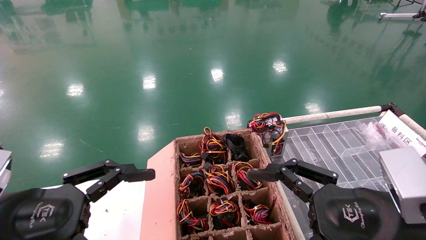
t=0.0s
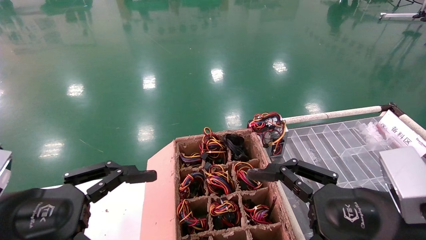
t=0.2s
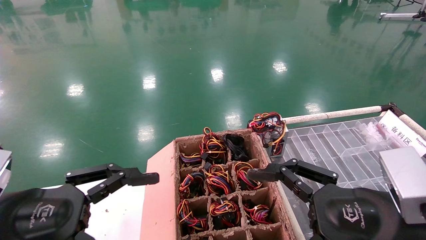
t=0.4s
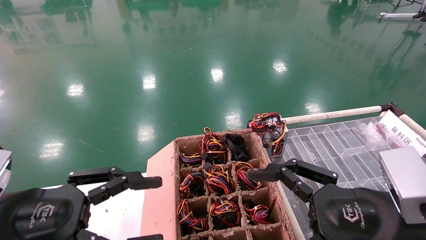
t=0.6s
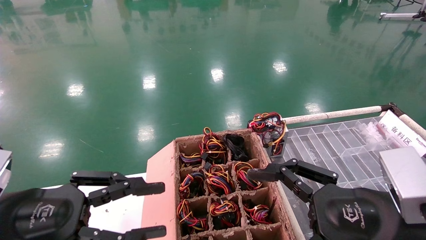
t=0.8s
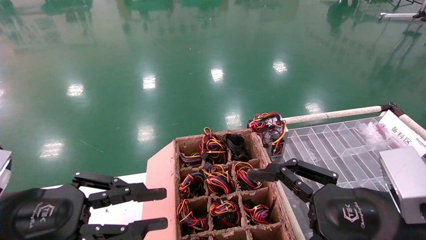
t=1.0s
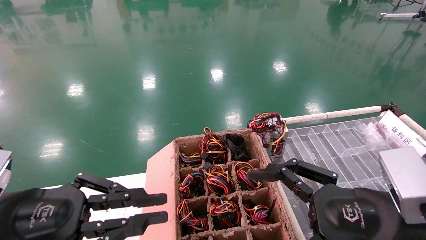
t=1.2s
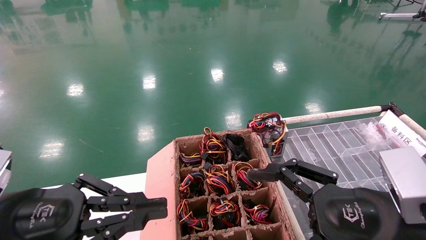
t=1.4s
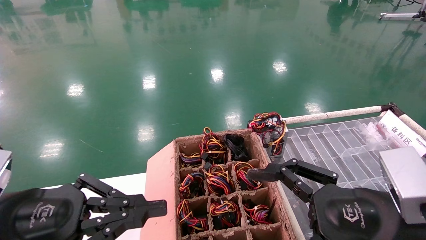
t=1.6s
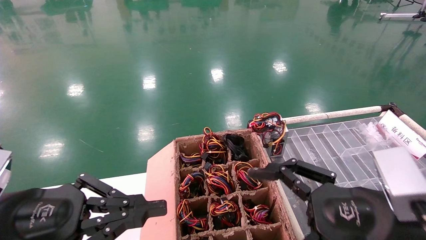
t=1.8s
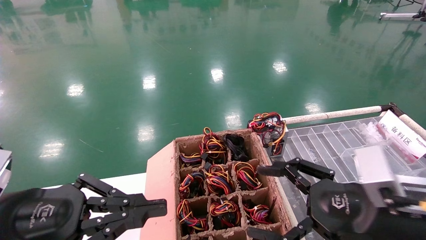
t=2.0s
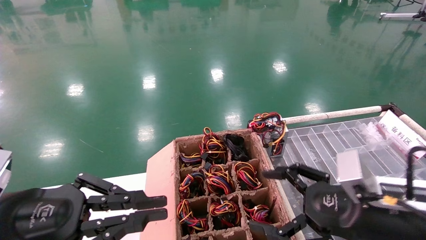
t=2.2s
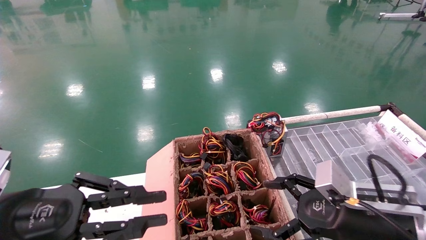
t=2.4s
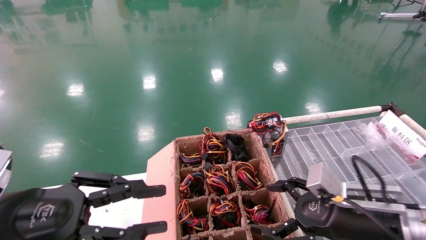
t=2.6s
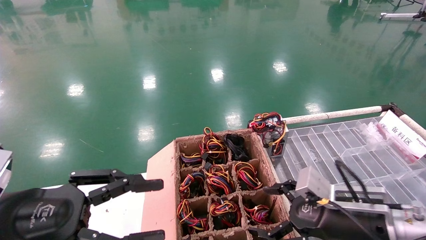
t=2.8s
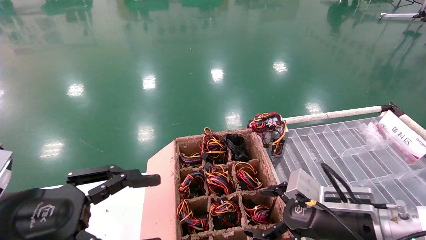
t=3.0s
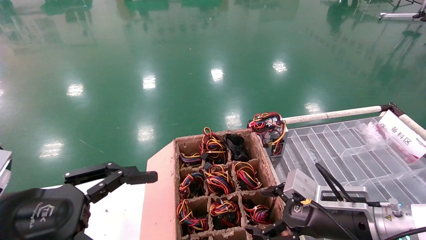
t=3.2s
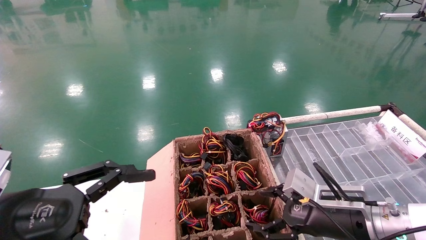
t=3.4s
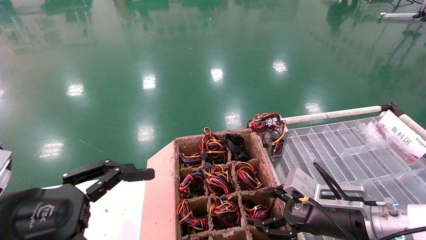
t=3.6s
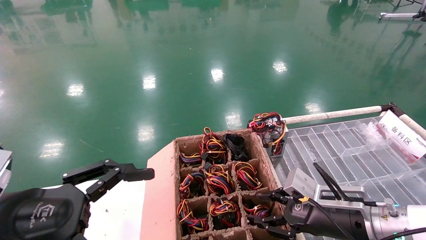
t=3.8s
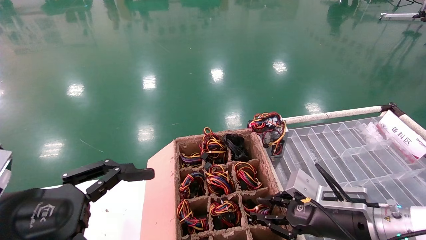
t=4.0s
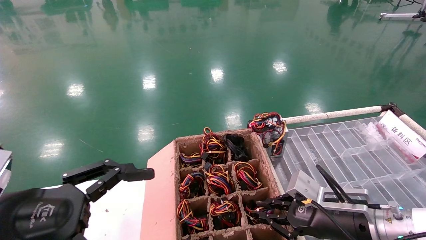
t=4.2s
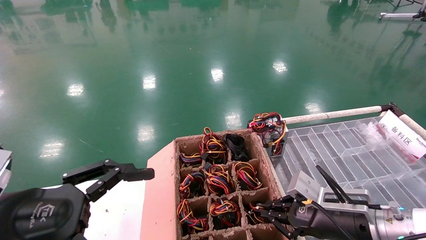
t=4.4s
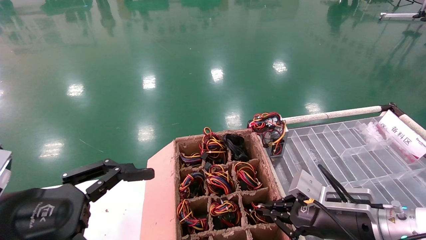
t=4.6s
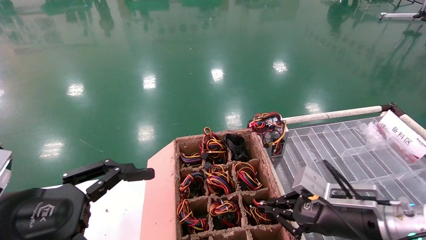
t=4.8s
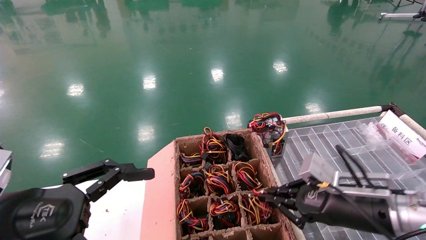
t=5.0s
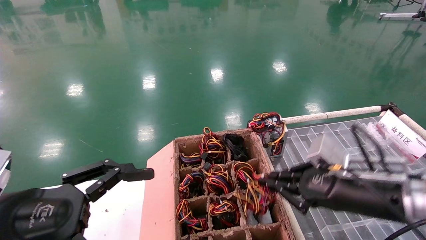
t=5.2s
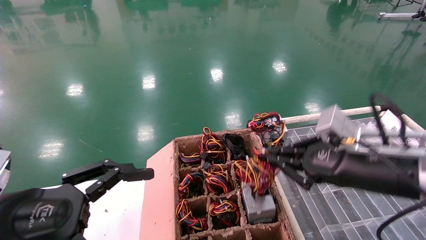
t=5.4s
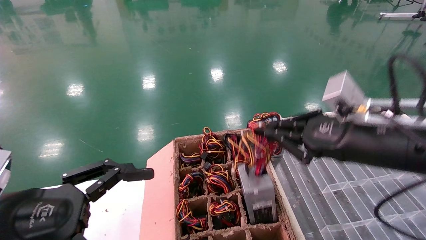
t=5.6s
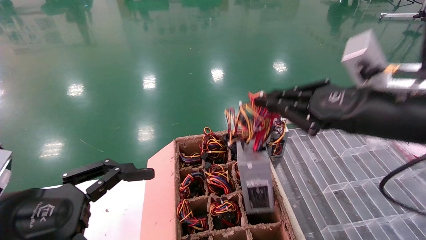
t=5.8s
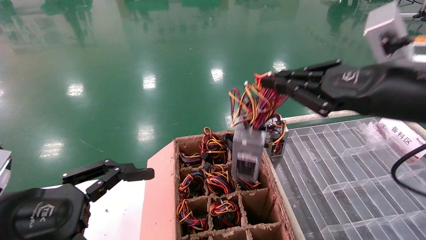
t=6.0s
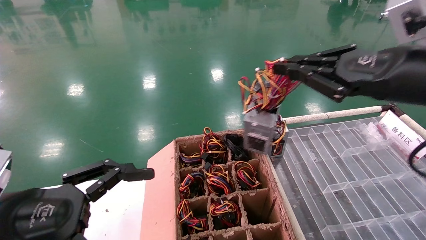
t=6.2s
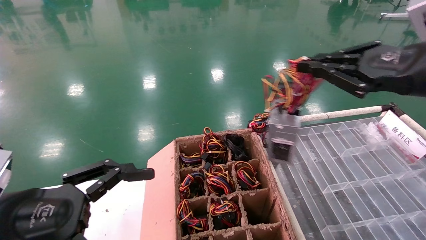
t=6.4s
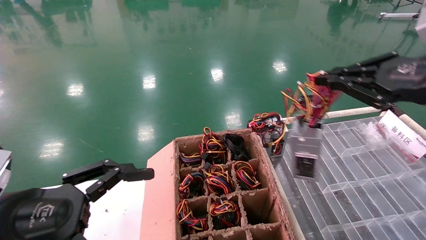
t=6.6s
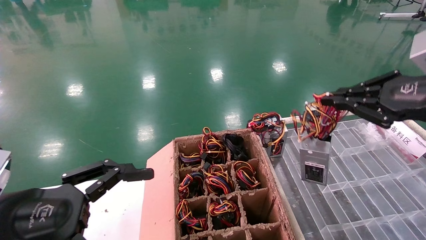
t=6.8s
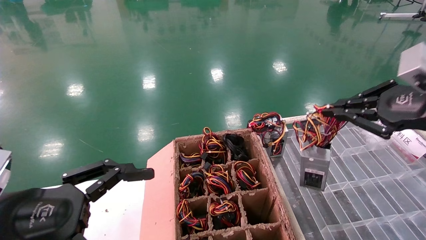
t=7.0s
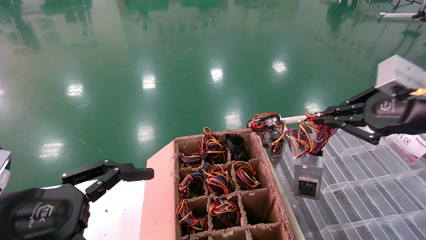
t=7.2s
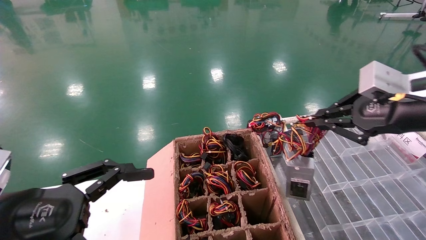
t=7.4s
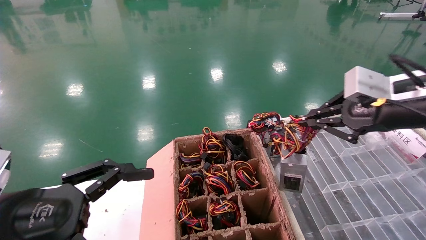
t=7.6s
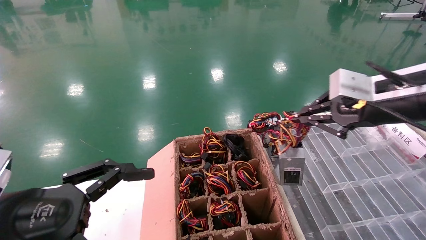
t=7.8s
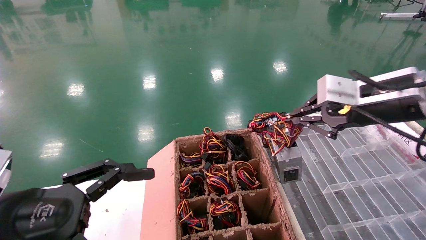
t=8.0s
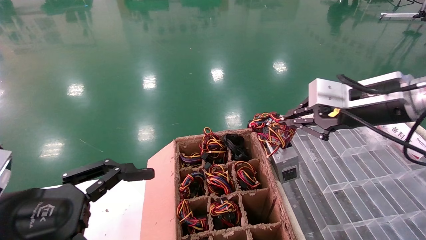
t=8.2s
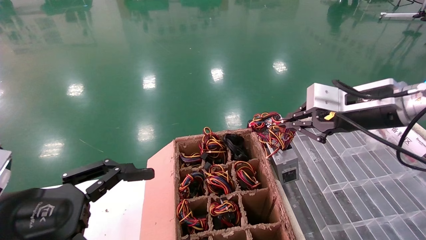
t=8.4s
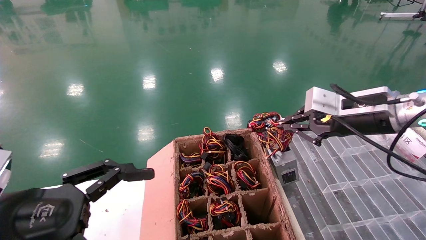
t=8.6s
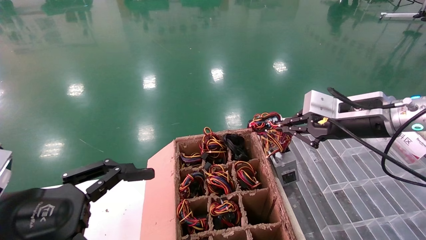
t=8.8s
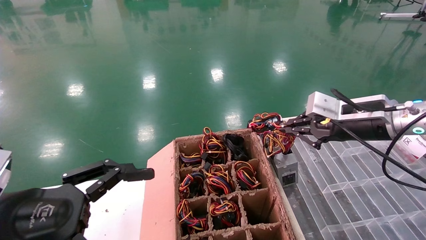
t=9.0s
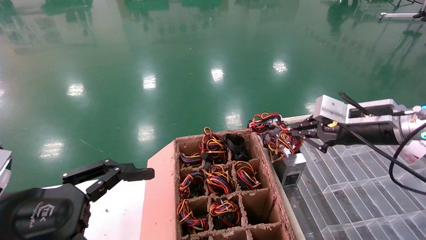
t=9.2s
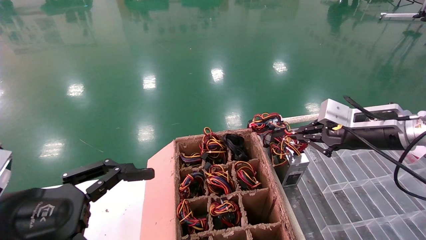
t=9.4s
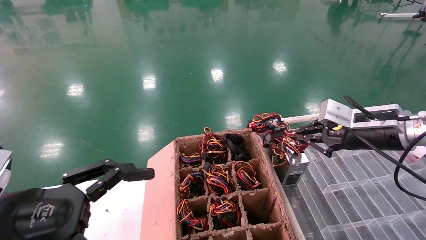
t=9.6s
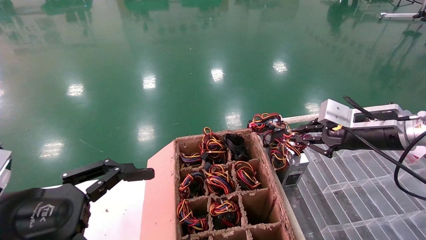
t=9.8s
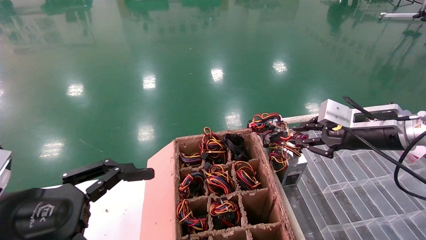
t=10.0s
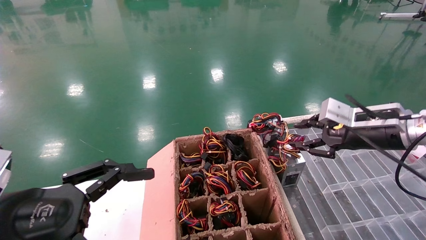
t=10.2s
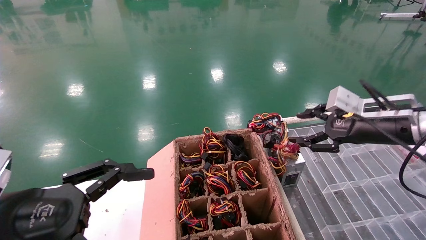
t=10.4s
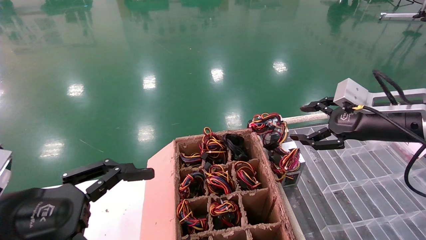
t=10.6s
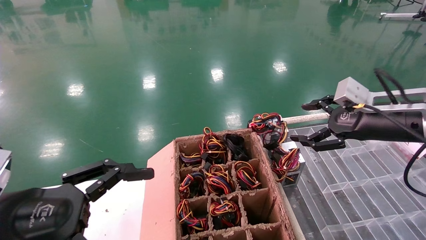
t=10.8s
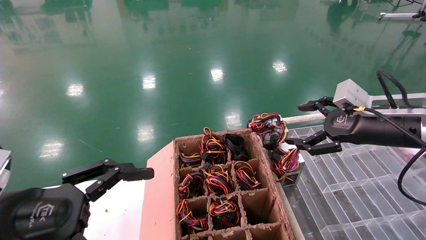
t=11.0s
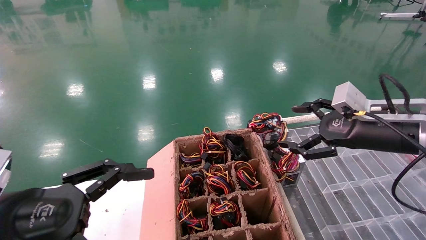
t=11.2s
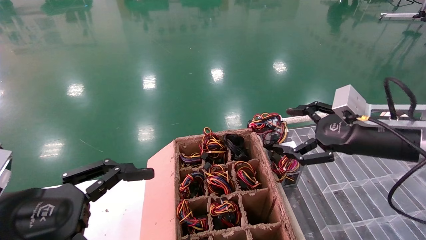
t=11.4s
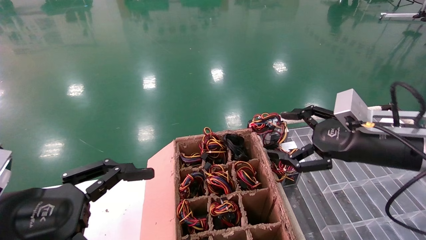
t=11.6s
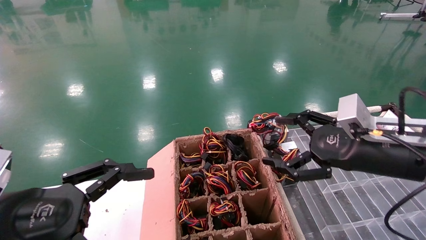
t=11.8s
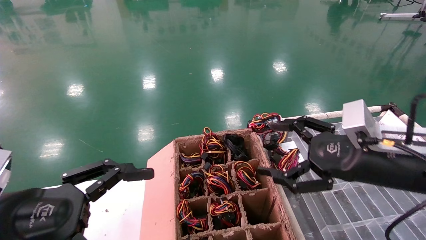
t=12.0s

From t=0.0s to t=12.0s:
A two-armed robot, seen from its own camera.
Step, from t=1.6s to t=4.8s: Grab and lift the power supply from the large box.
Step, from t=5.0s to t=9.8s: Place the power supply on the operating table.
From t=0.0s to t=1.6s: The left gripper closes its fingers.
From t=1.6s to t=3.0s: The left gripper opens its fingers, while the right gripper moves forward and downward, roughly 10 cm.
From t=3.0s to t=4.4s: The right gripper closes; the left gripper opens.
From t=4.4s to t=6.0s: The right gripper heads upward, covering roughly 20 cm.
From t=6.0s to t=7.6s: The right gripper changes place by roughly 5 cm.
From t=7.6s to t=9.0s: The right gripper travels forward and downward by some 10 cm.
From t=9.0s to t=10.4s: The right gripper opens up.
From t=10.4s to t=12.0s: The right gripper shifts about 10 cm backward and to the left, and opens.
